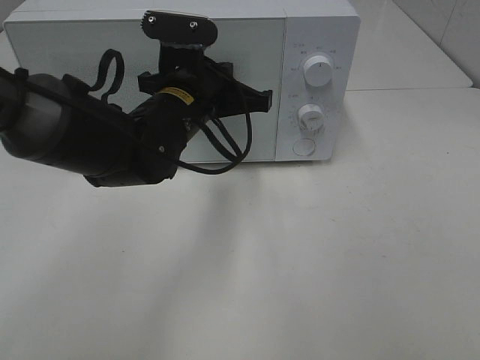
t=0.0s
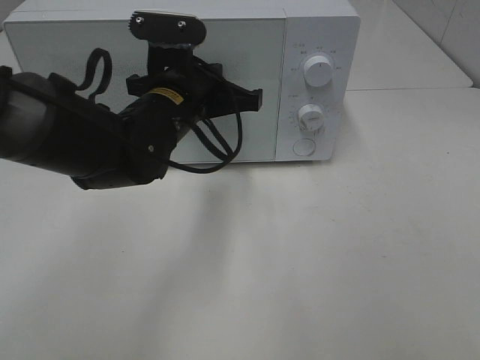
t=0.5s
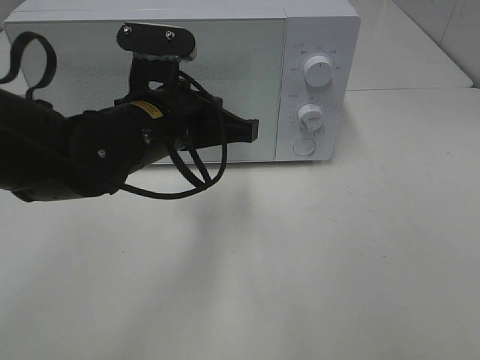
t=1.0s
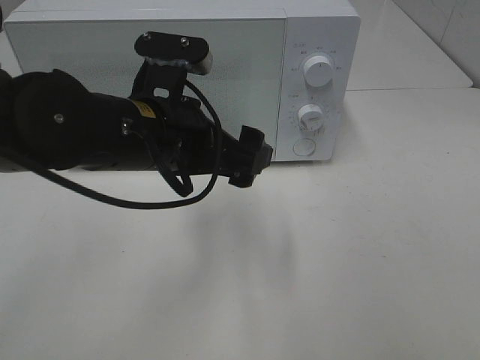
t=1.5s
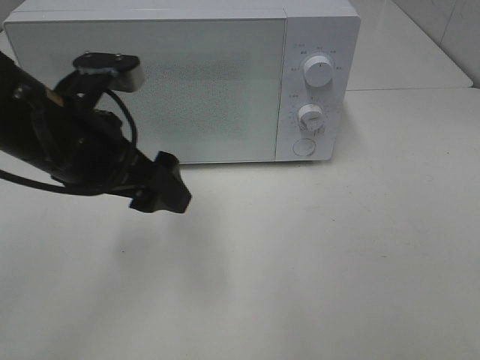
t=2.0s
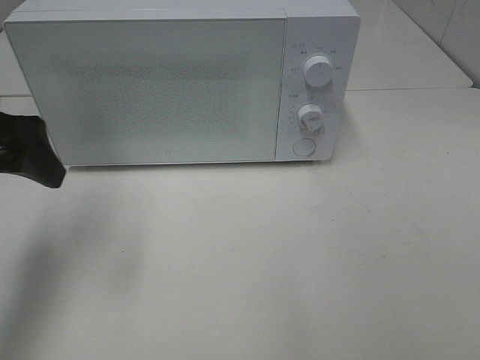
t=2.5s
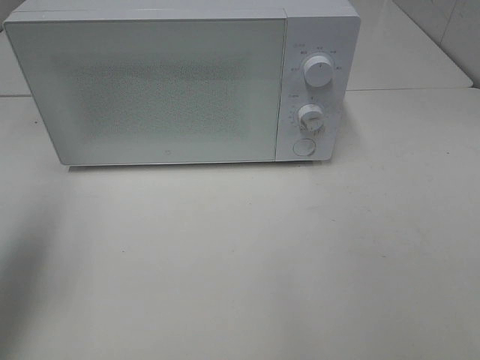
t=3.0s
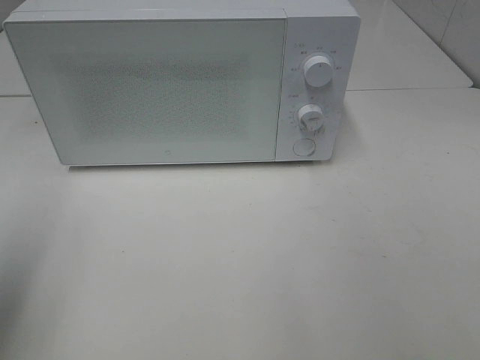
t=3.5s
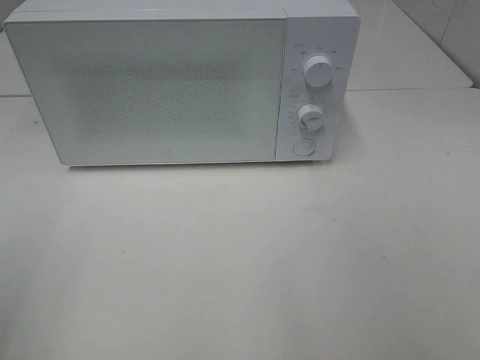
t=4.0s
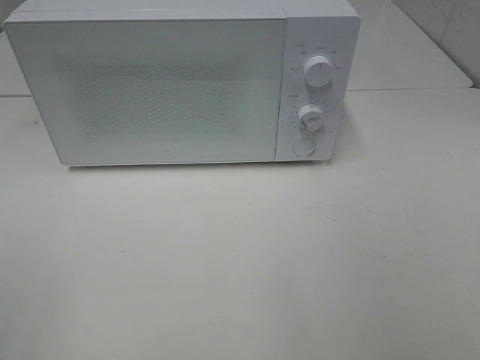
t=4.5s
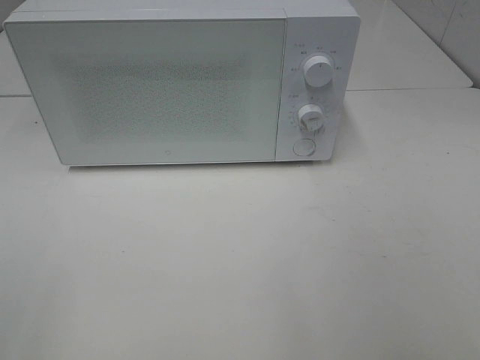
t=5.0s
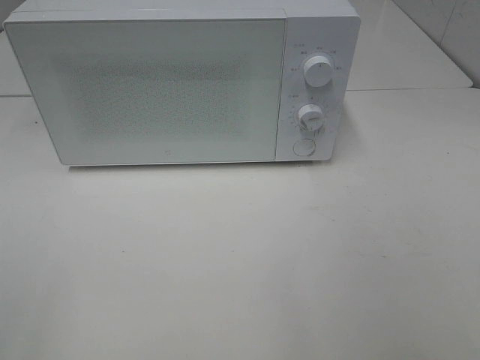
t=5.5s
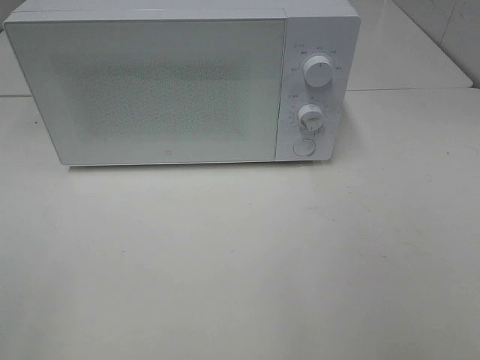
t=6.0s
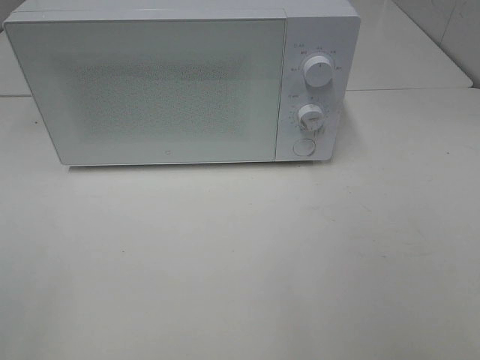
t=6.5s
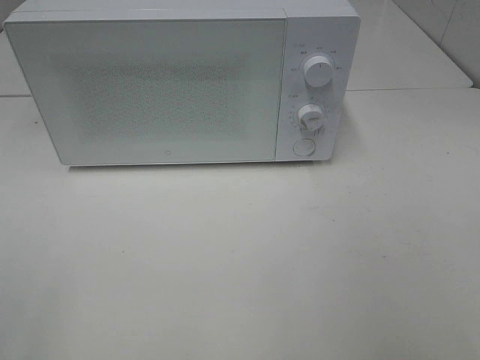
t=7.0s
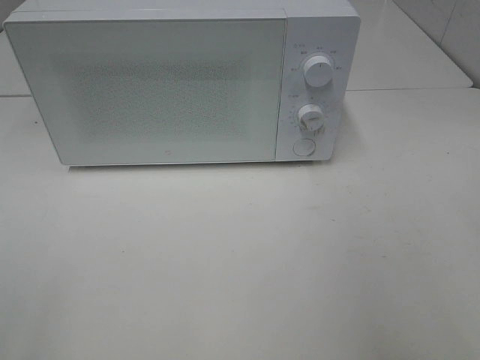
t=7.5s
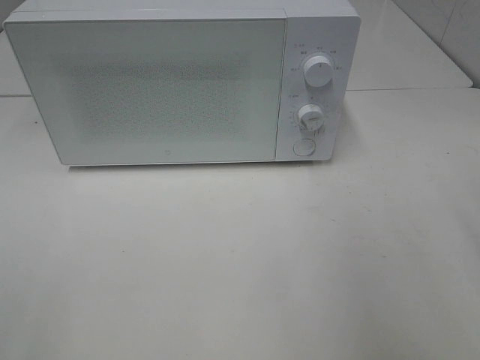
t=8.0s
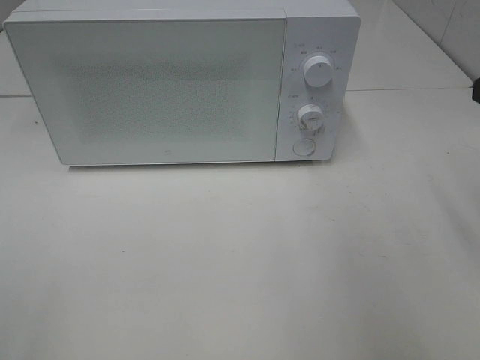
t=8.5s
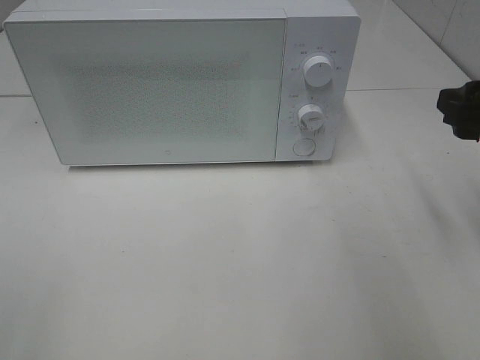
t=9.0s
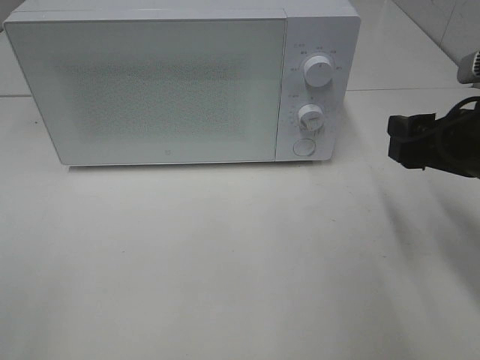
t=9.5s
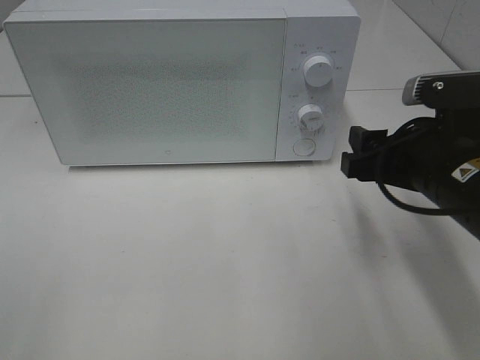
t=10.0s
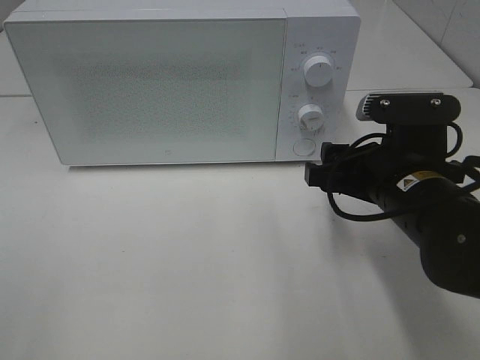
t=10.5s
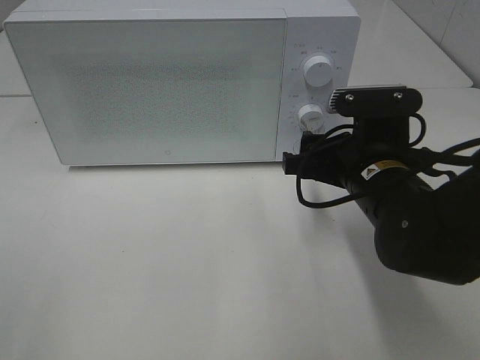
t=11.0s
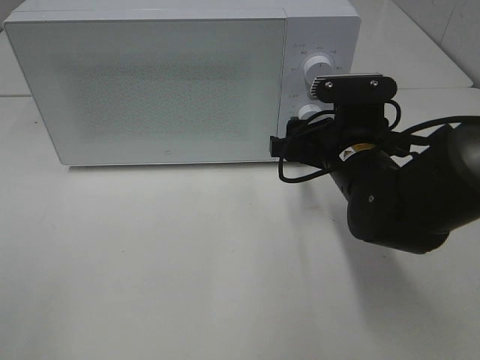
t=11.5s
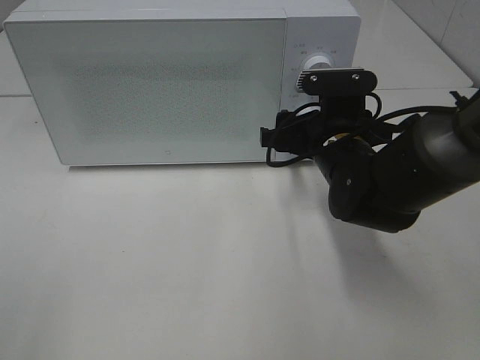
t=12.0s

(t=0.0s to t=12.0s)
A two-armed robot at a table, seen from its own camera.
Task of the whole recording: Heat Sandwich.
t=0.0s - t=2.0s: The left gripper travels to the left and backward by roughly 15 cm, and opens.
t=2.0s - t=4.0s: The left gripper travels backward and to the left by roughly 25 cm.
t=8.0s - t=10.0s: The right gripper is displaced downward, to the left and forward by some 15 cm.
t=10.0s - t=12.0s: The right gripper is displaced forward and to the left by roughly 10 cm.

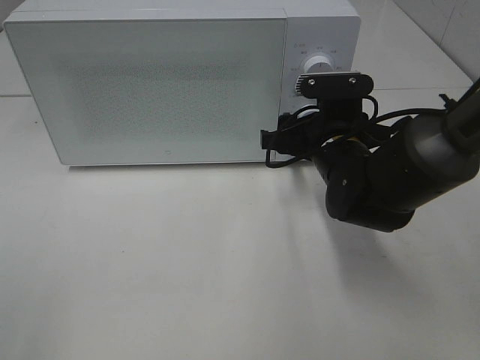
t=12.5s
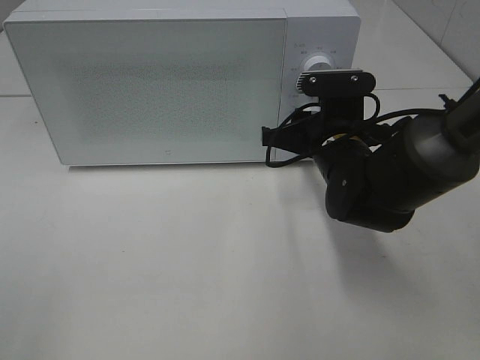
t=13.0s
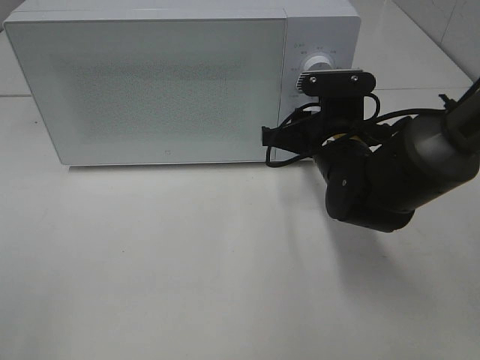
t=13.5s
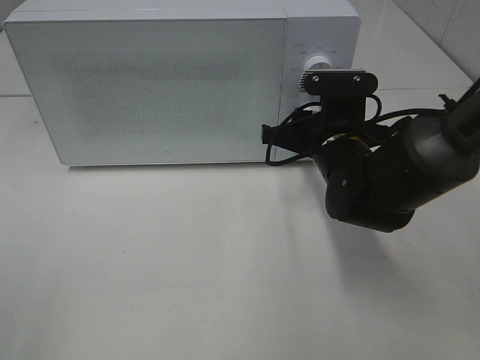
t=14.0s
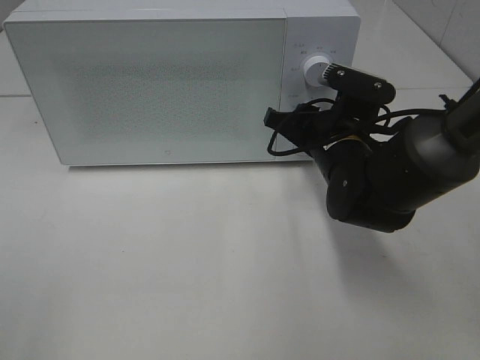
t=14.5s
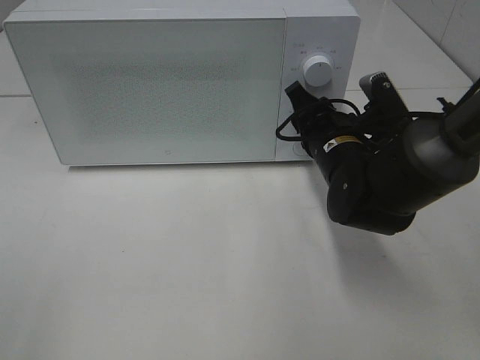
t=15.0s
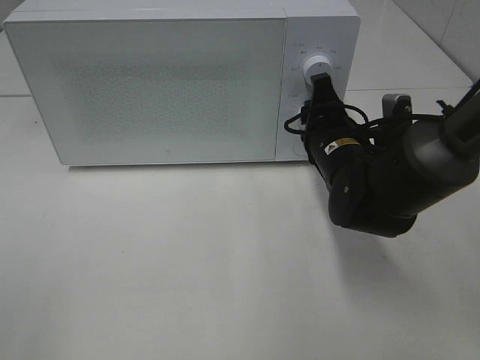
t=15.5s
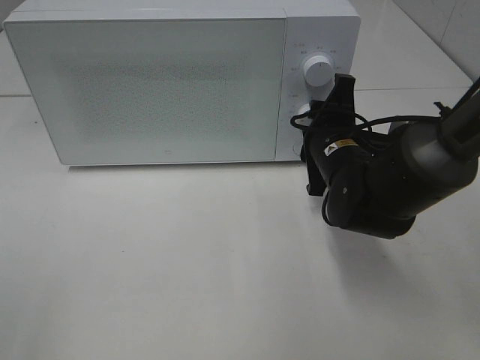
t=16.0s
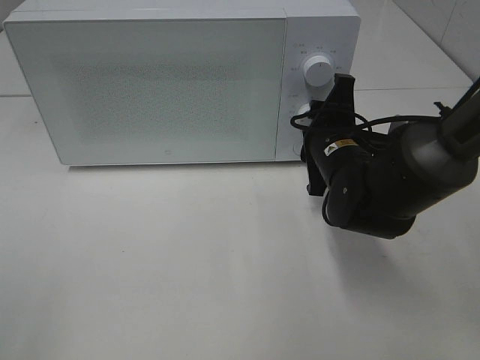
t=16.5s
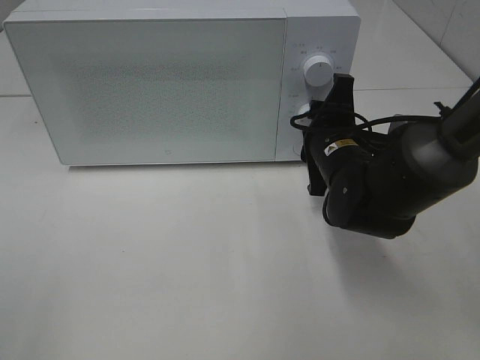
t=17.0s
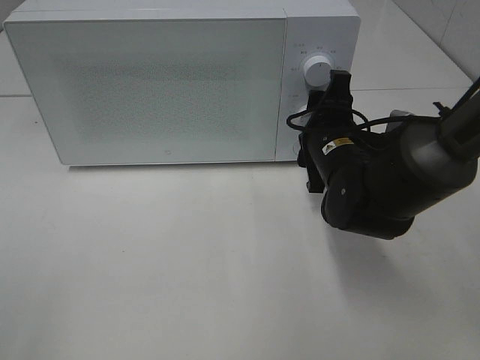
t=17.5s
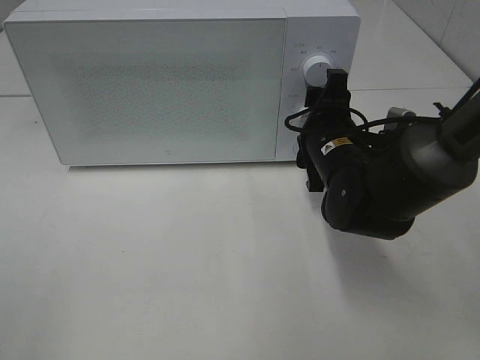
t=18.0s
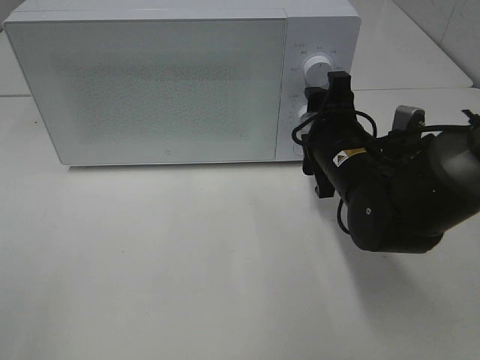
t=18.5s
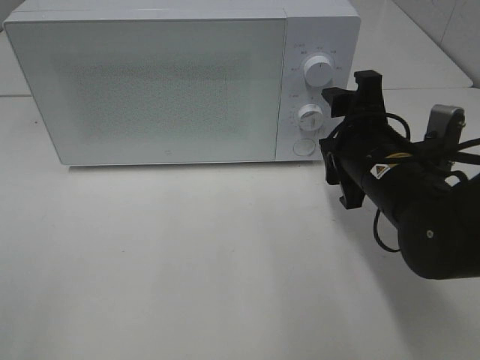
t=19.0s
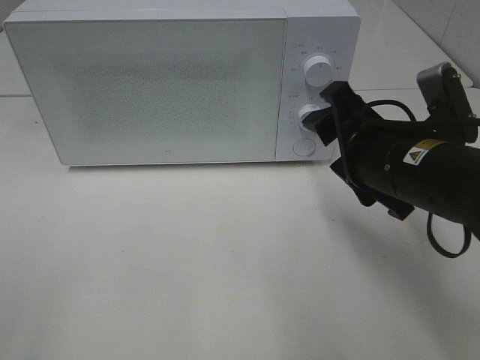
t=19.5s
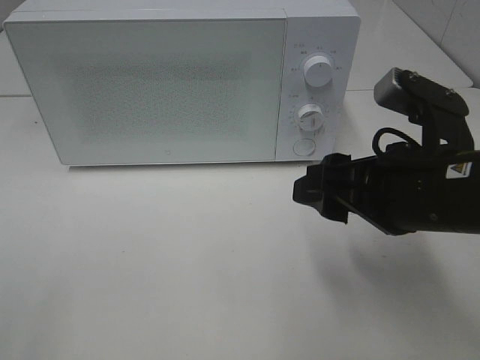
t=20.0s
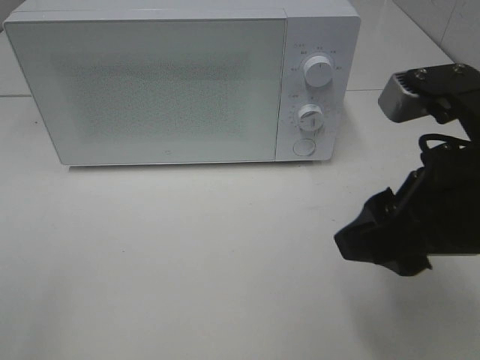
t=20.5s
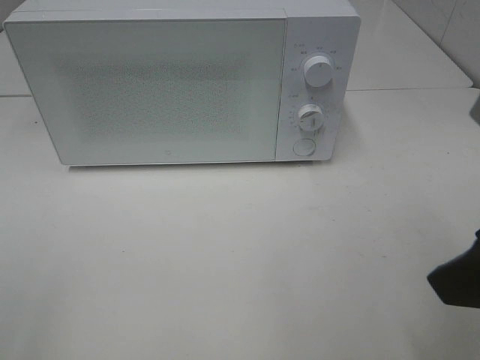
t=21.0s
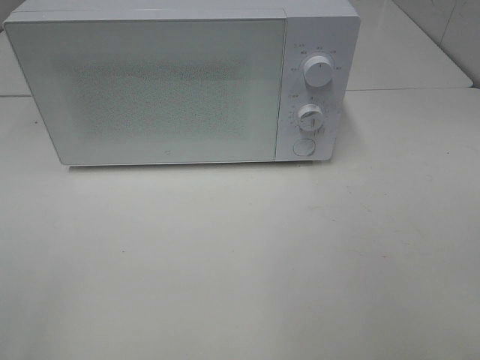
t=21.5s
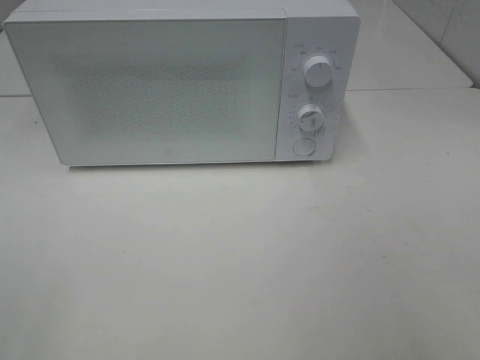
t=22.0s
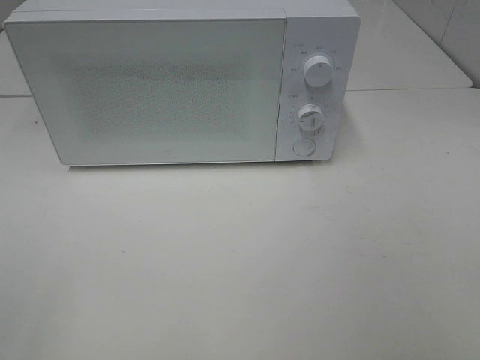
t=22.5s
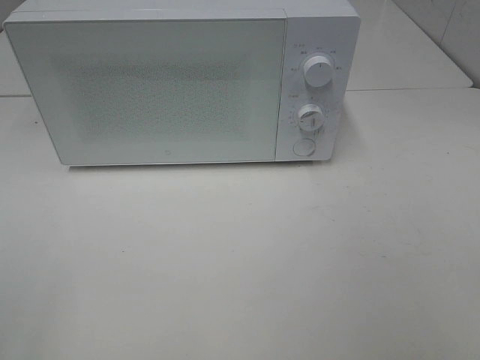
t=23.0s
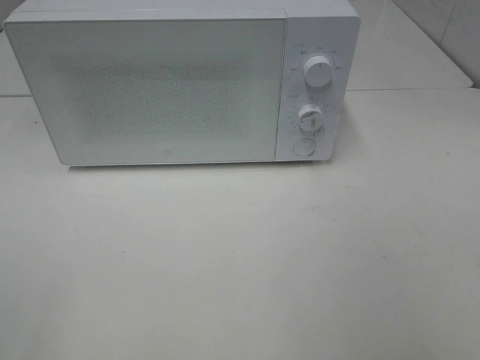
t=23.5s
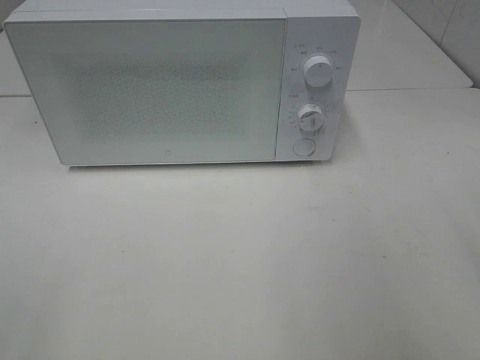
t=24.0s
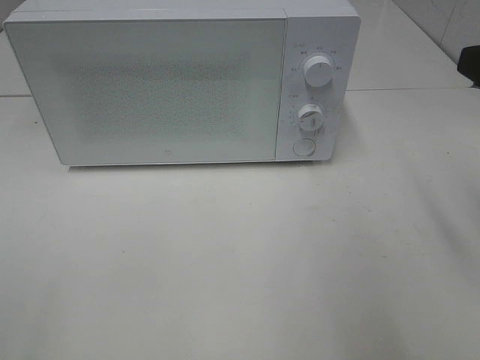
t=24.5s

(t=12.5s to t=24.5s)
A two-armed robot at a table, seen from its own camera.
Task of the whole recording: Heat Sandwich.
Step, t=12.5s - t=18.0s: Right hand: twist timer button.
t=16.5s - t=18.5s: There are only small adjustments of the grippers.
t=18.5s - t=20.5s: The right gripper moves backward and upward, some 20 cm.
t=20.5s - t=22.5s: The right gripper travels backward and to the right by some 20 cm.

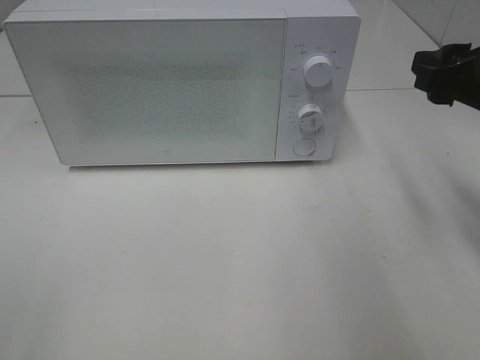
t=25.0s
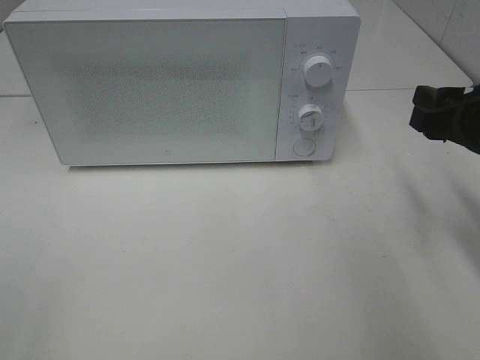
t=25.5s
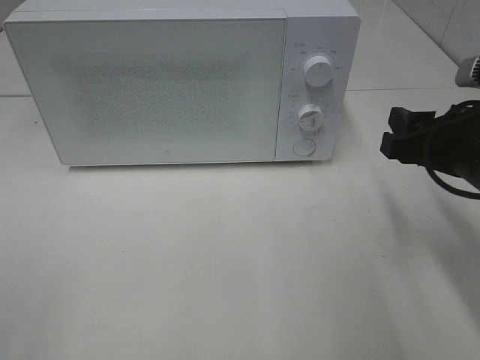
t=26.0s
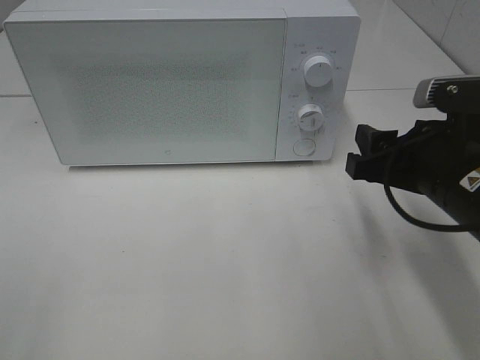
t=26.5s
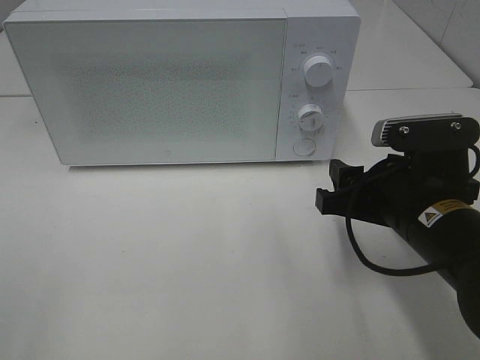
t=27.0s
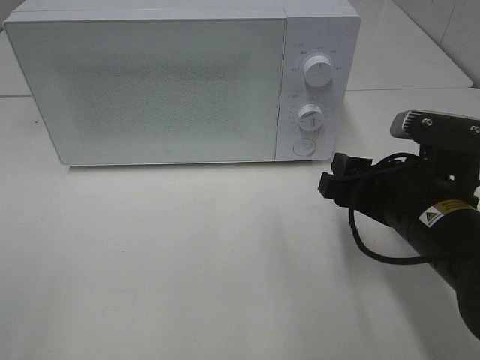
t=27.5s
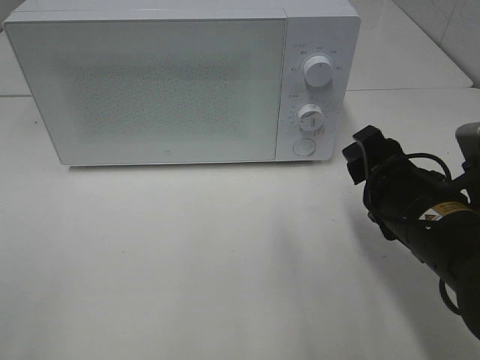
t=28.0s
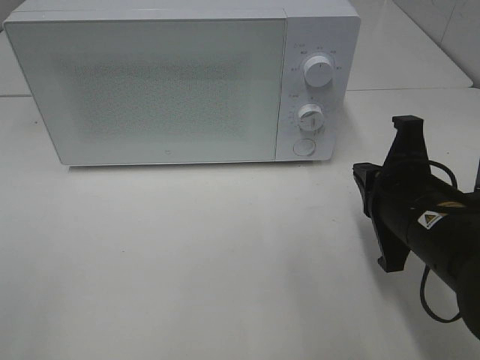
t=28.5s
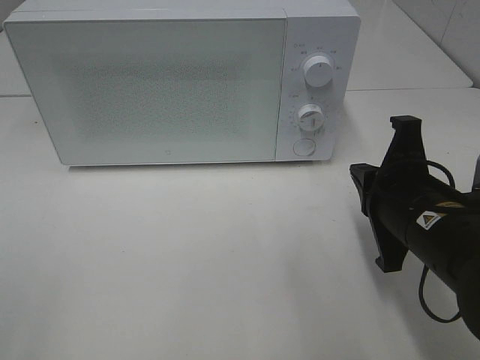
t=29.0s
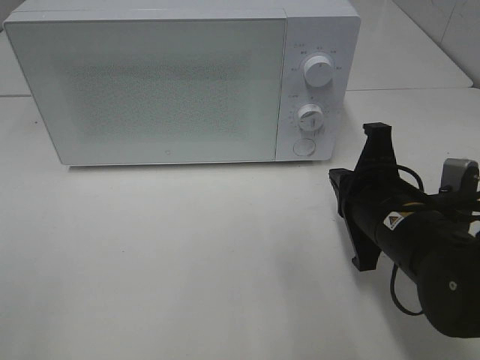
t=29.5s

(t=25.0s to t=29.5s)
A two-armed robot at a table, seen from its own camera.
Task of the whole recording: Heat Sandwich.
t=25.0s - t=27.0s: The right gripper moves downward and to the left, about 15 cm.
t=27.0s - t=29.5s: The right gripper closes up.
